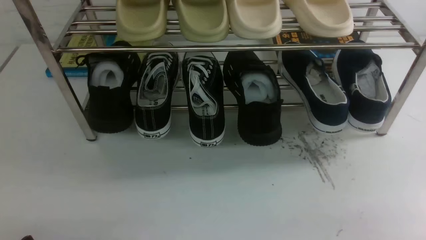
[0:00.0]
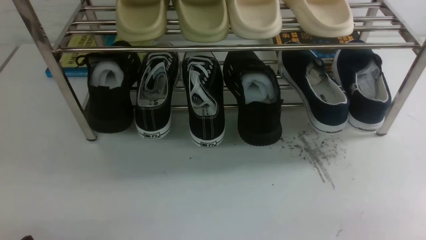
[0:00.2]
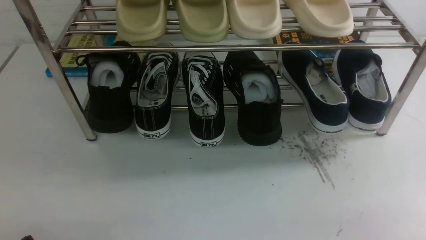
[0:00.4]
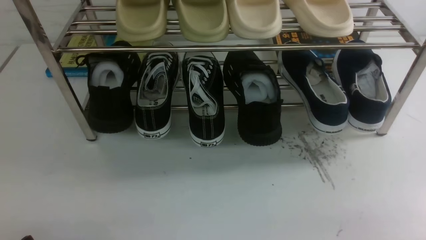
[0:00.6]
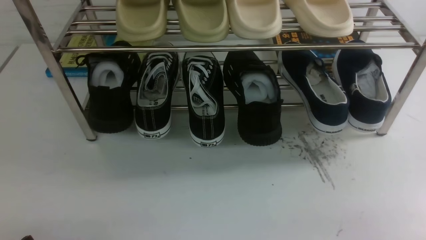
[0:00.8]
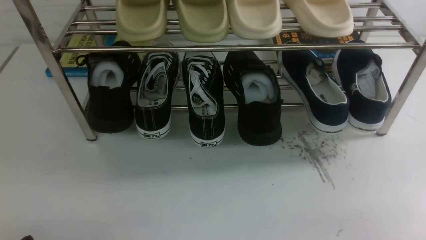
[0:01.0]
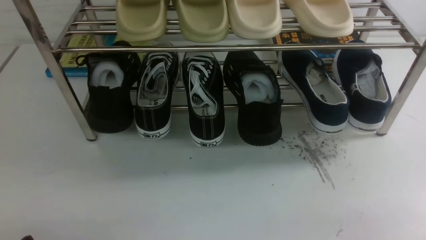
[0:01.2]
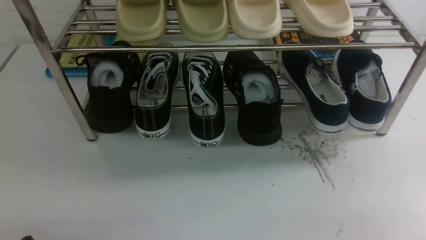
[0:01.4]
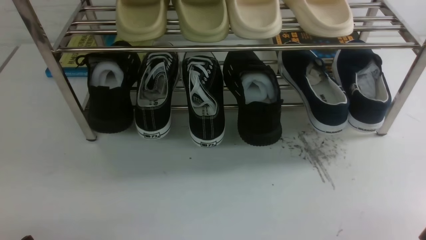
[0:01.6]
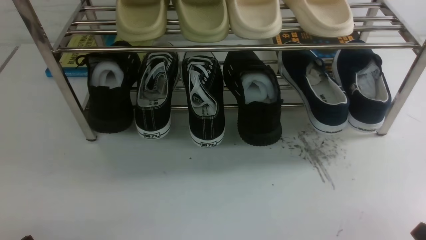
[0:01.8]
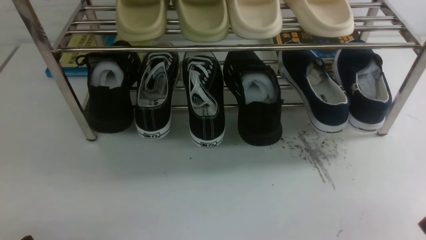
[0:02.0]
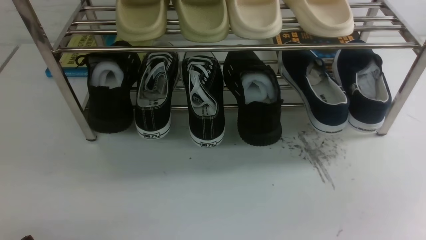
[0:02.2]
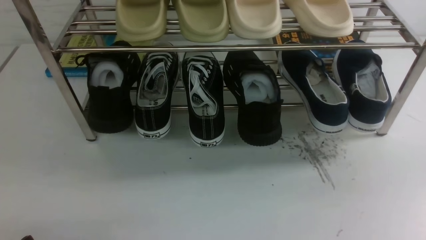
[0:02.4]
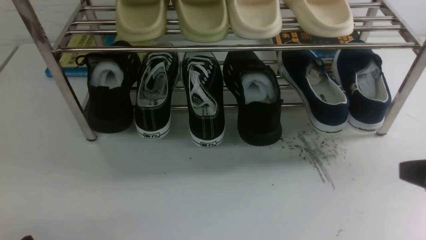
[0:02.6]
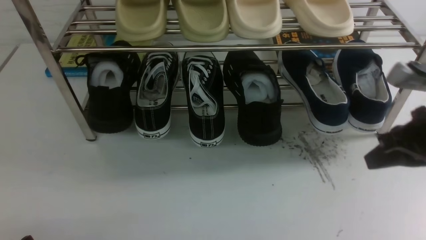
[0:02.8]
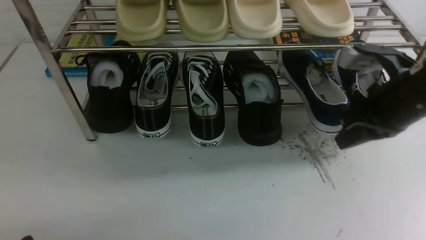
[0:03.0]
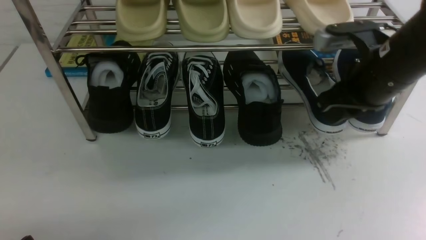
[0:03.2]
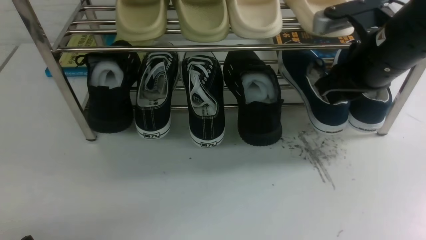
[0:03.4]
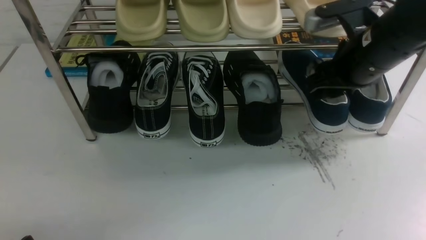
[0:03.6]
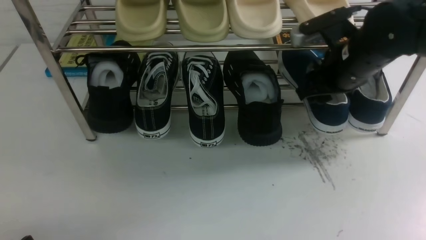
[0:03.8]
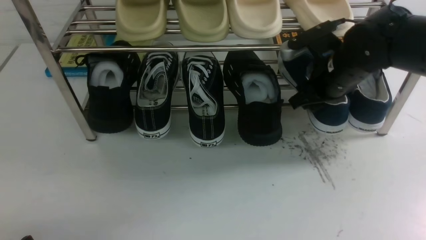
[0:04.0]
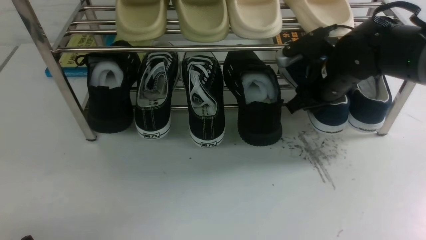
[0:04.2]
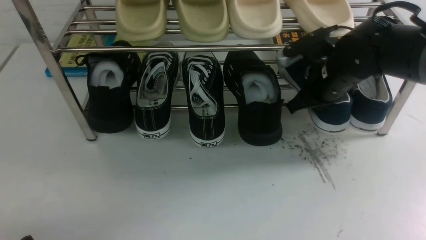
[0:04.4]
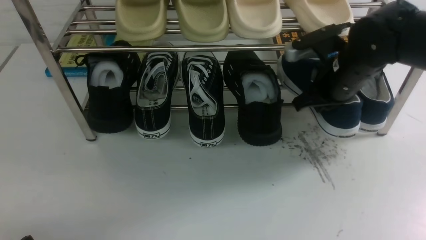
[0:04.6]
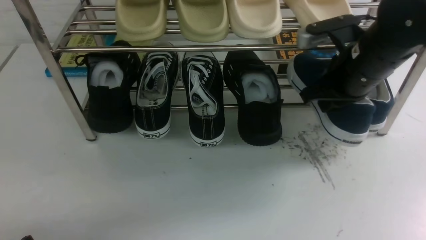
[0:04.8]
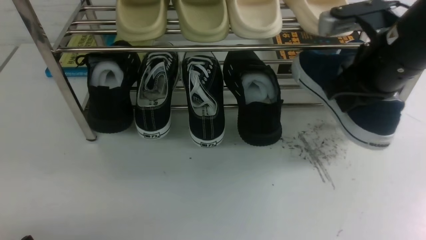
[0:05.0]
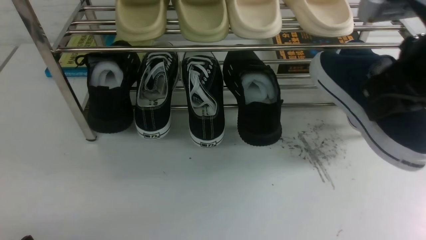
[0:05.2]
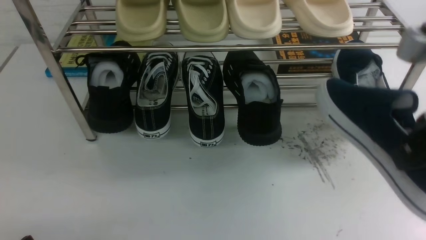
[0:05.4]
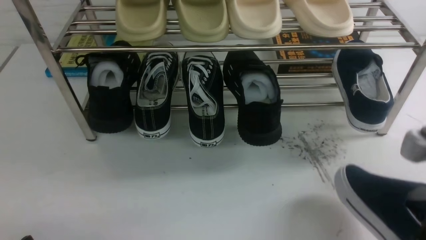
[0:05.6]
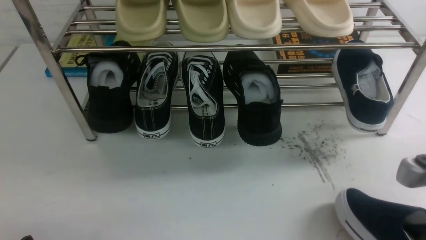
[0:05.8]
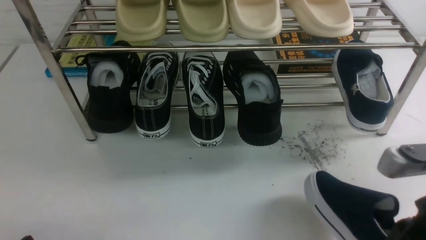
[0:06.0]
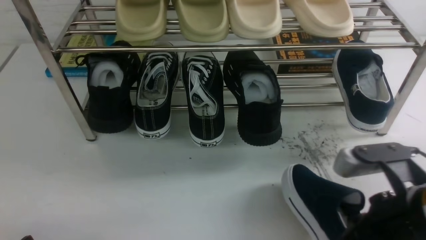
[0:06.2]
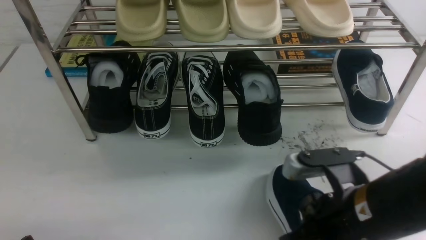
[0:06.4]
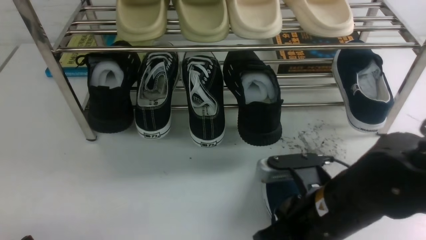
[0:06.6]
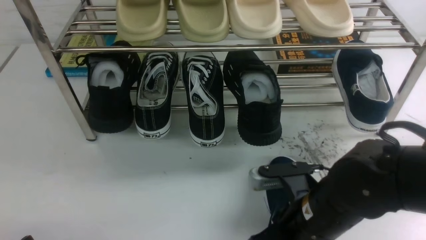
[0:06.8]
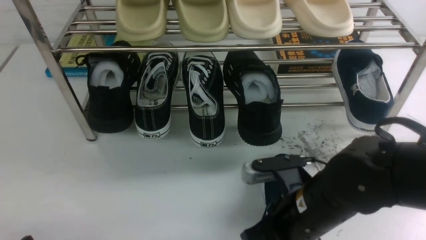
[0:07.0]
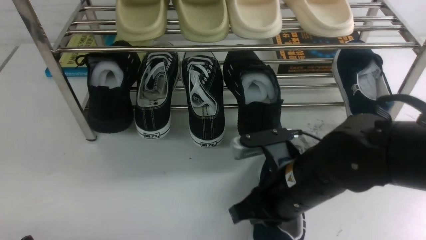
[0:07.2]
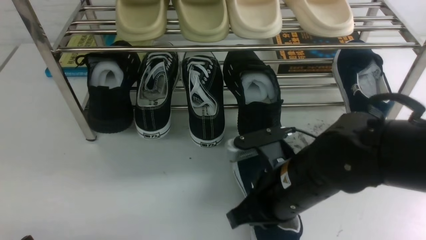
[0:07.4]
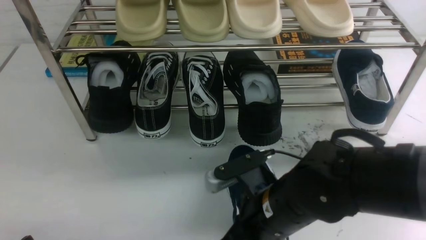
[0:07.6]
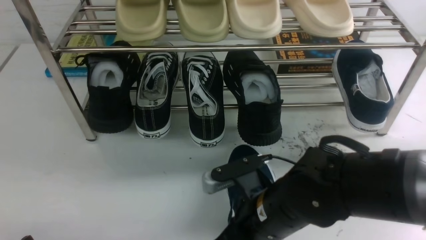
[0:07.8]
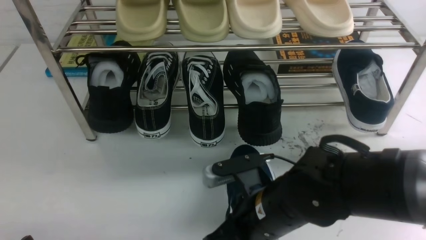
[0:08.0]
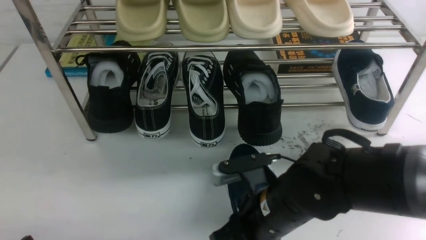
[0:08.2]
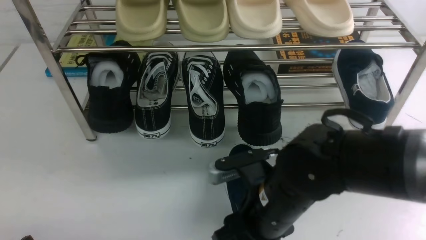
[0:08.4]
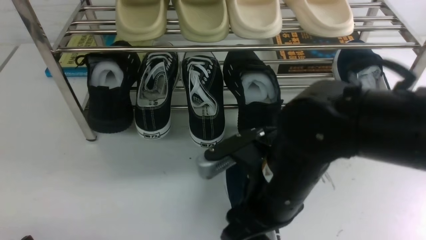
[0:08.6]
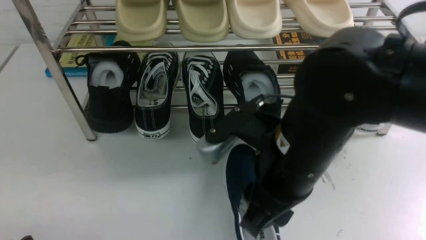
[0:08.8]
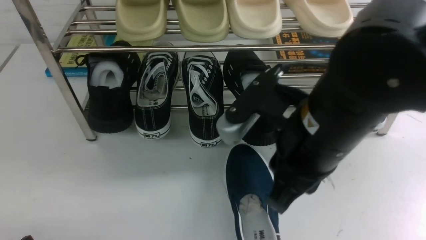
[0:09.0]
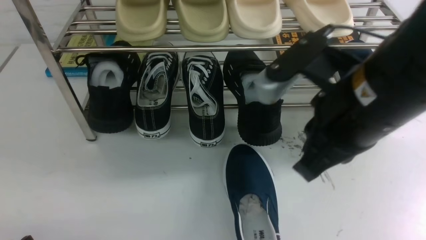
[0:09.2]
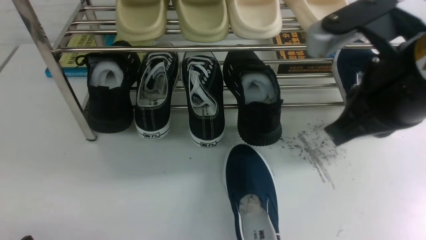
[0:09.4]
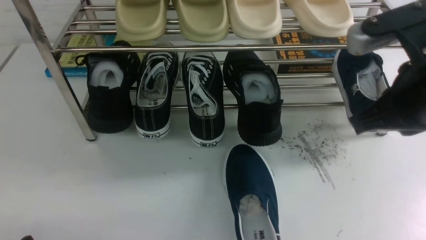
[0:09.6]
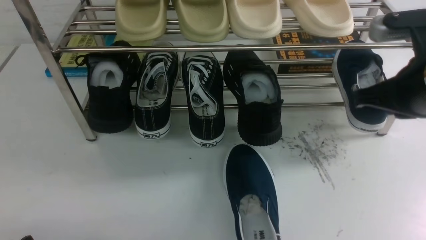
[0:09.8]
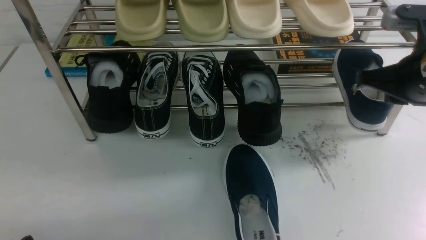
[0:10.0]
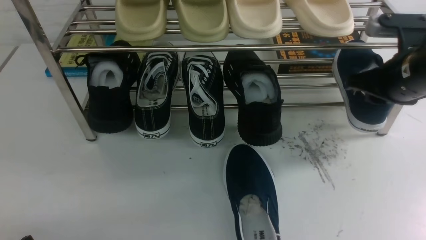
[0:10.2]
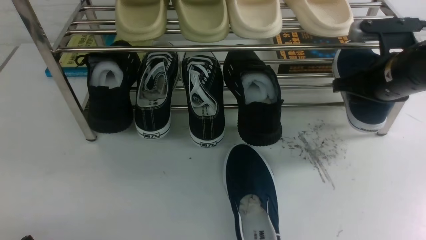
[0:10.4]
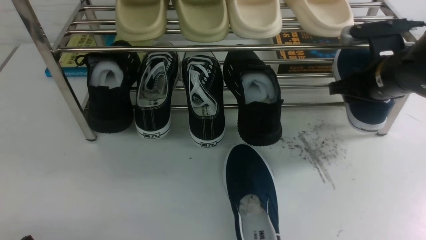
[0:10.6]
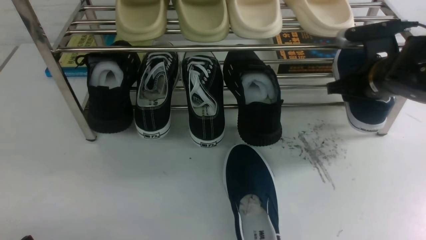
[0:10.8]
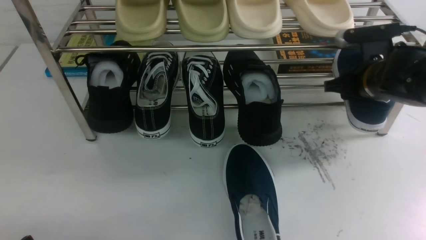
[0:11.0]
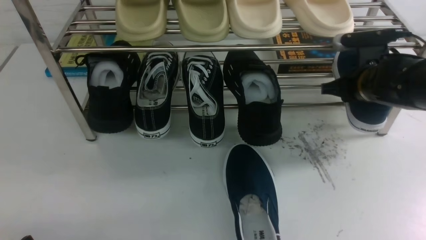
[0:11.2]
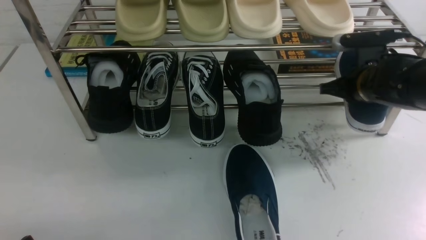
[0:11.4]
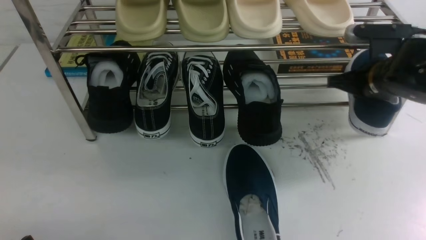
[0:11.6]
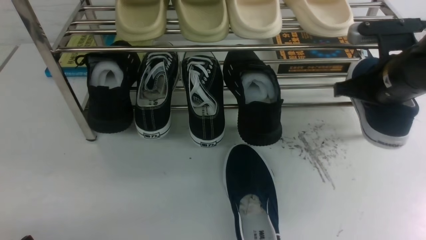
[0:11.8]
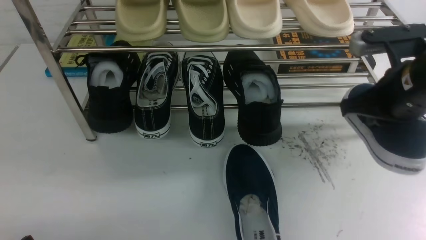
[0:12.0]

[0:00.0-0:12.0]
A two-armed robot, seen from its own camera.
Step, 0.0 to 4.8 s: use the right arm to clamp a shoe on the right side of the shoe rack.
Step, 5.0 to 8.8 s: use the right arm to take out the clamped shoe from the shoe rack and put it down.
Step, 9.0 to 11.8 s: use the right arm to clamp a shoe on the right side of the shoe rack.
1.6 to 3.0 s: The right gripper is displaced forward and upward by about 25 cm, and closes.
3.0 to 4.4 s: The right gripper travels forward and downward by about 10 cm, and opens and closes again.
4.4 to 6.0 s: The right gripper shifts roughly 25 cm backward.
6.0 to 7.6 s: The right gripper goes about 20 cm to the left, downward and forward.
7.6 to 9.0 s: The right gripper heads upward, covering some 15 cm, and opens, then closes again.
9.0 to 10.4 s: The right gripper travels to the right, forward and downward by some 20 cm, and opens.
10.4 to 12.0 s: The right gripper heads backward, covering roughly 5 cm, and closes its fingers.

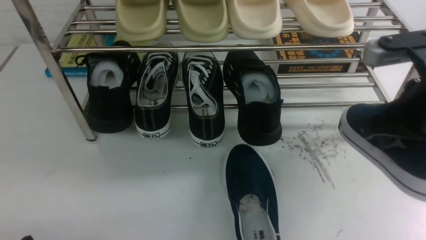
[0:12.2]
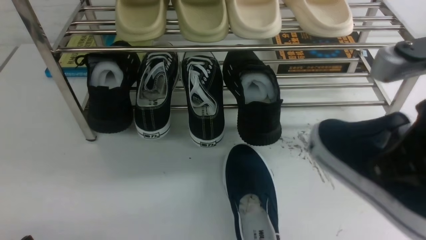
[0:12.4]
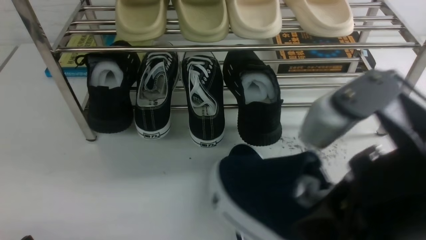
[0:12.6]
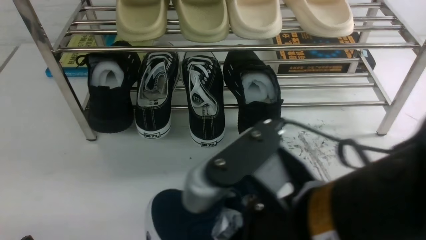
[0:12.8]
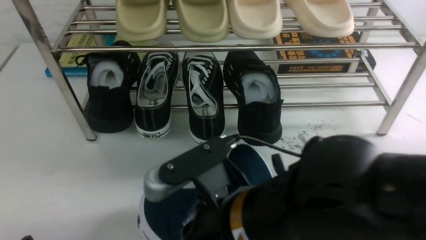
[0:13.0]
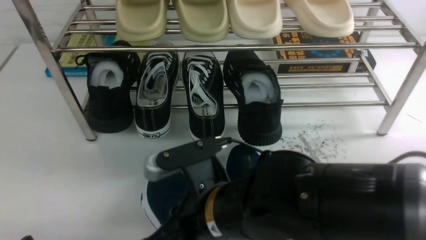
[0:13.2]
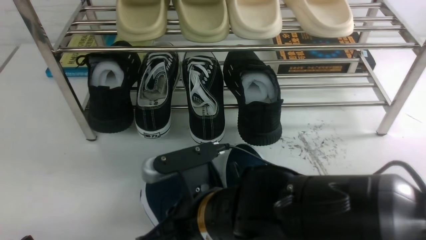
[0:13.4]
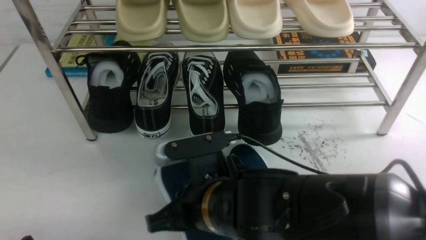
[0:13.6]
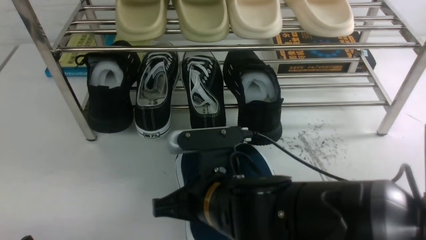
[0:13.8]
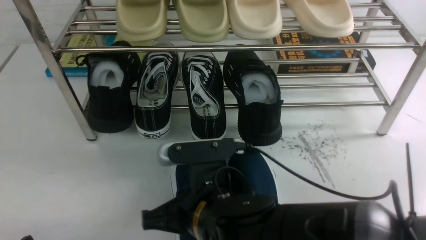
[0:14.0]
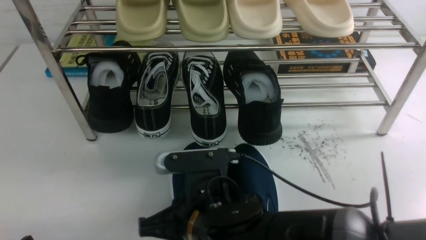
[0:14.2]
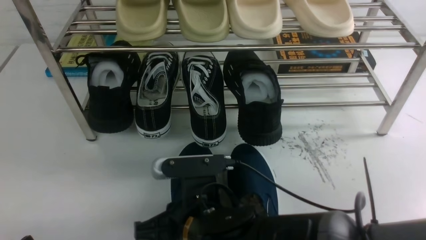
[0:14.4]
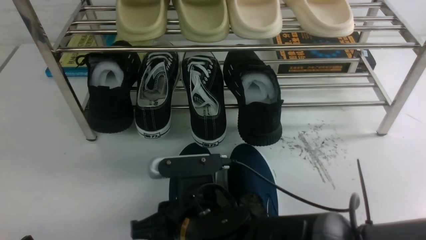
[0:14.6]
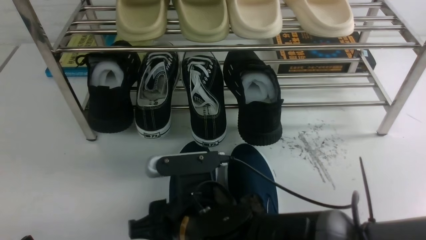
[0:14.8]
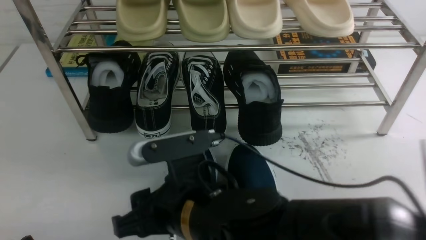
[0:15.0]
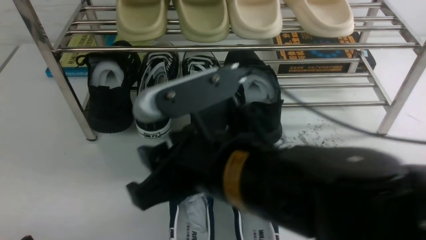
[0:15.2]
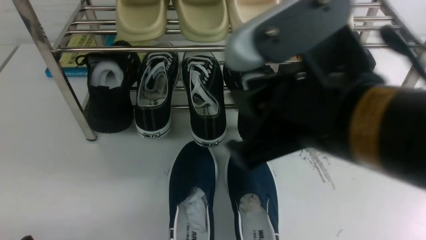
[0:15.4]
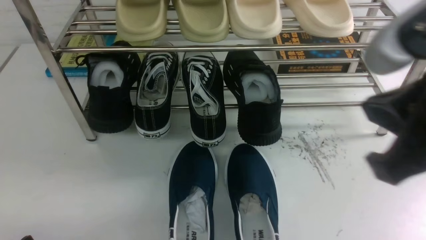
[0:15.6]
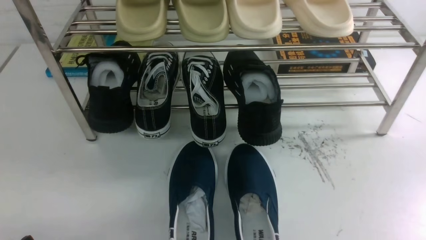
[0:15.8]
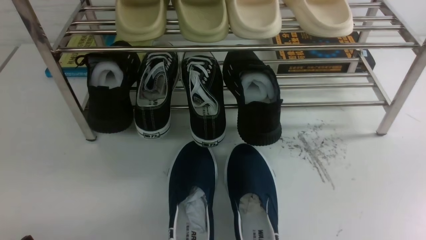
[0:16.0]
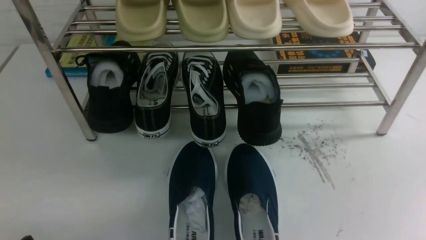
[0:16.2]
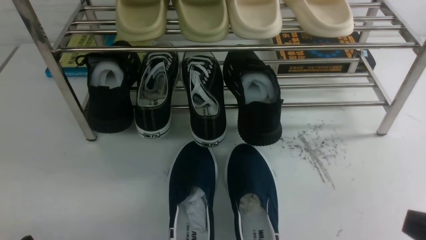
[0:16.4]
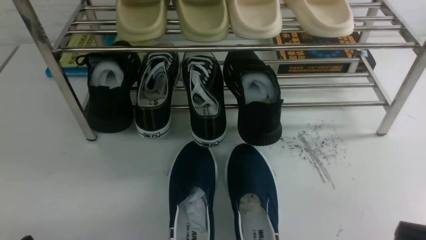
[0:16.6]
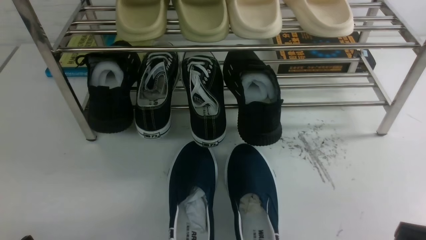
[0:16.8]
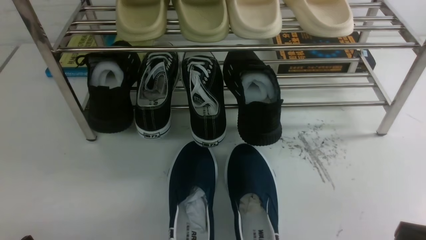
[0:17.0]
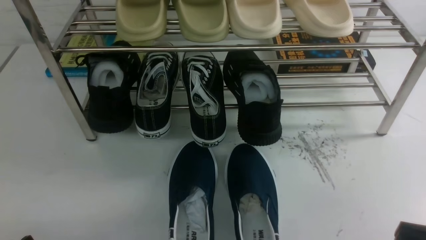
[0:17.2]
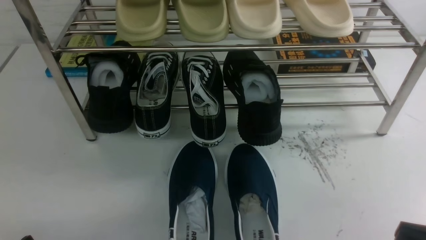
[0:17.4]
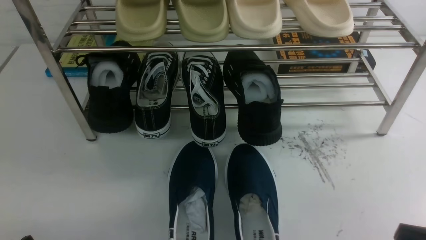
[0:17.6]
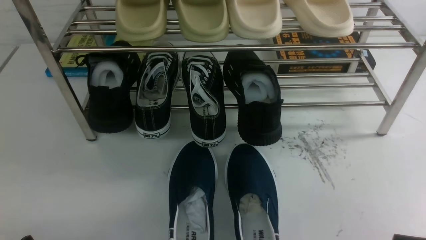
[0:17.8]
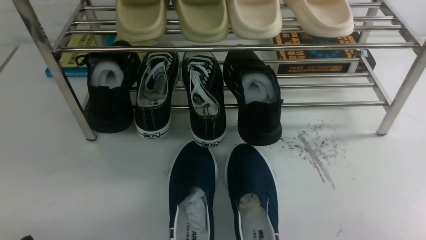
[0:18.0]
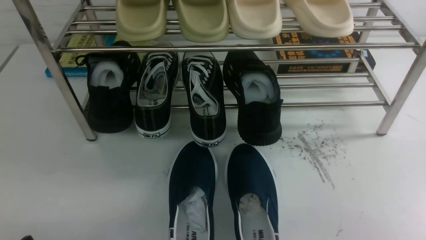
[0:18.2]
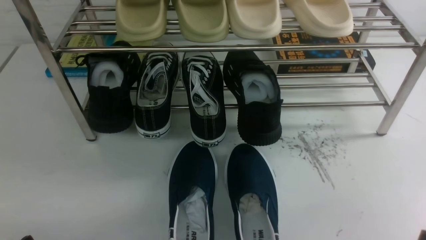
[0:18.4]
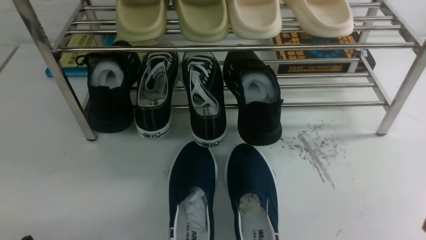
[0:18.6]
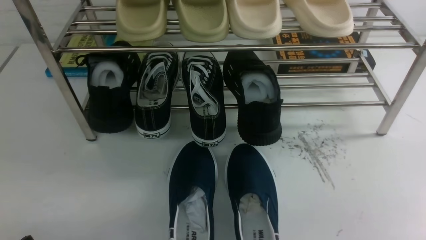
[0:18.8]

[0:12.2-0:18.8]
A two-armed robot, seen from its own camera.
Step, 12.2 to 15.0 s: use the right arm to take out the clamped shoe from the shoe rack and put it down.
12.2 to 13.8 s: The right gripper is displaced to the left and downward by some 25 cm.
13.8 to 15.4 s: The right gripper heads upward and to the right, covering about 20 cm, and opens, then closes again.
15.4 to 17.2 s: The right gripper shifts approximately 20 cm to the right, downward and backward, and closes.
